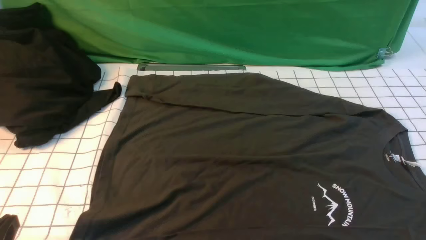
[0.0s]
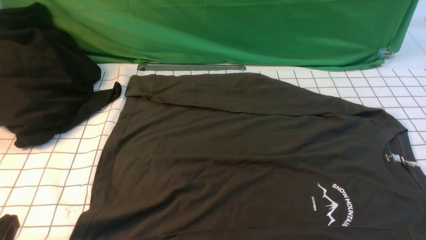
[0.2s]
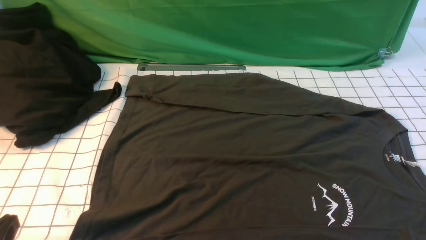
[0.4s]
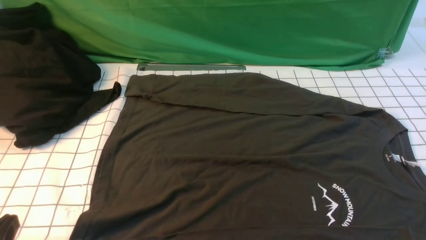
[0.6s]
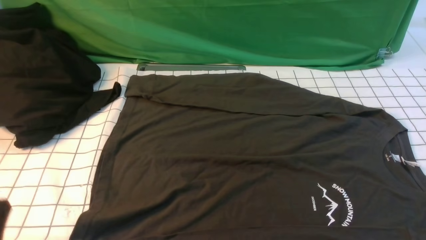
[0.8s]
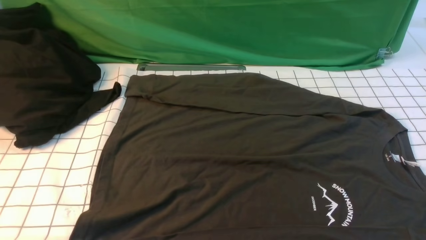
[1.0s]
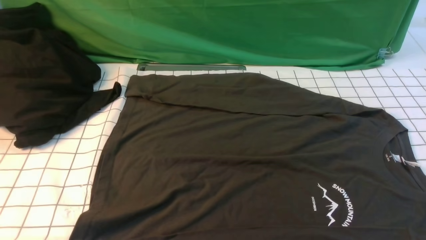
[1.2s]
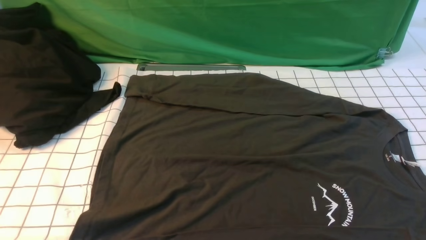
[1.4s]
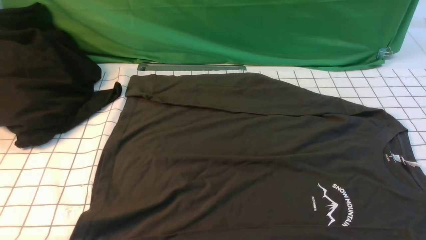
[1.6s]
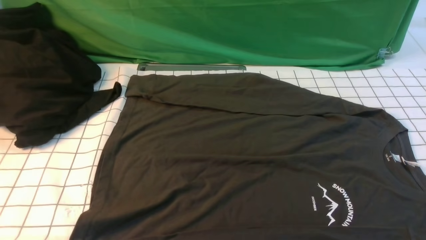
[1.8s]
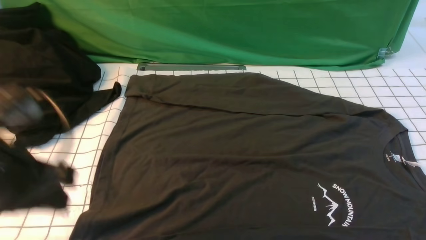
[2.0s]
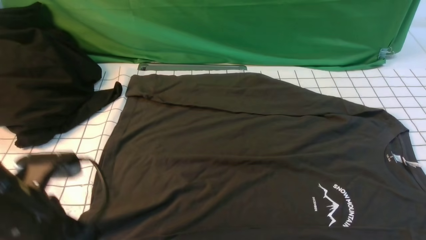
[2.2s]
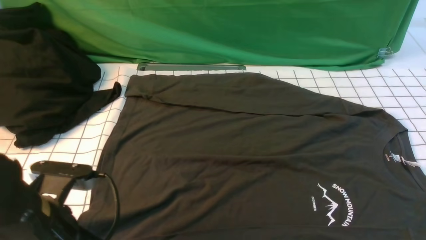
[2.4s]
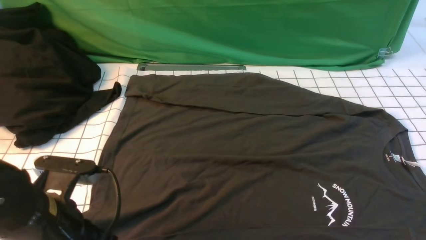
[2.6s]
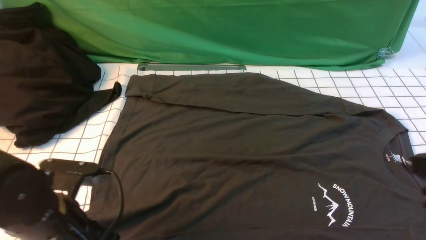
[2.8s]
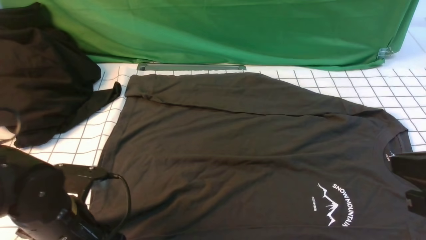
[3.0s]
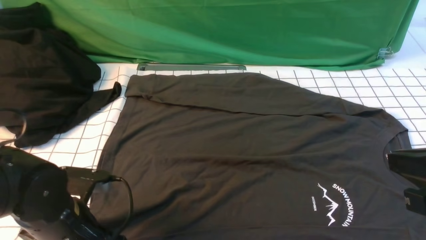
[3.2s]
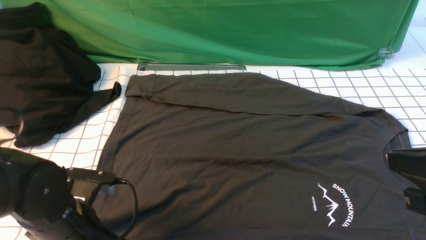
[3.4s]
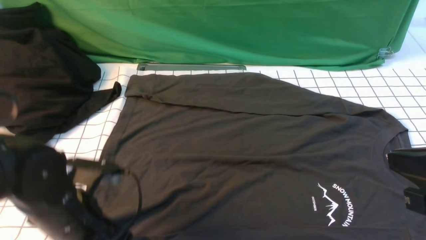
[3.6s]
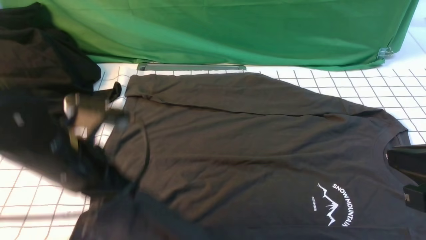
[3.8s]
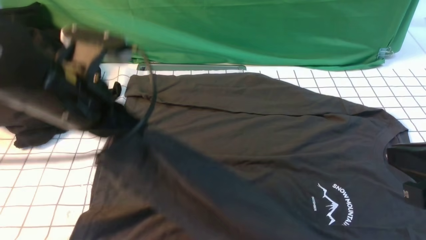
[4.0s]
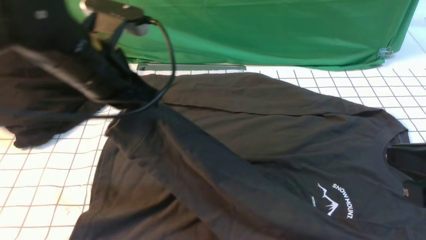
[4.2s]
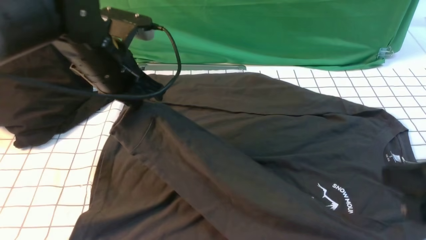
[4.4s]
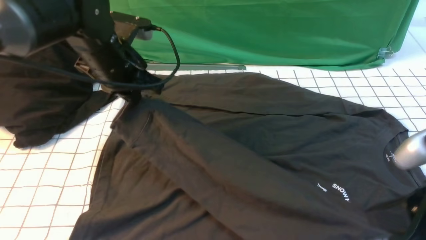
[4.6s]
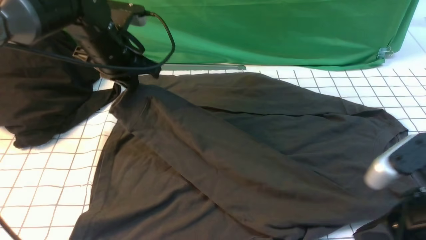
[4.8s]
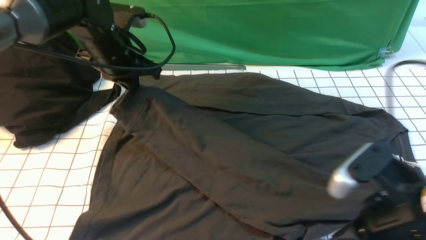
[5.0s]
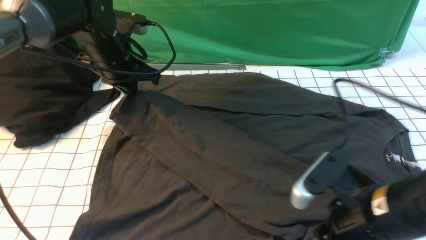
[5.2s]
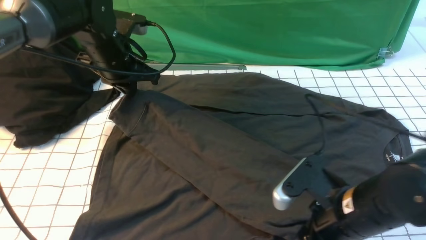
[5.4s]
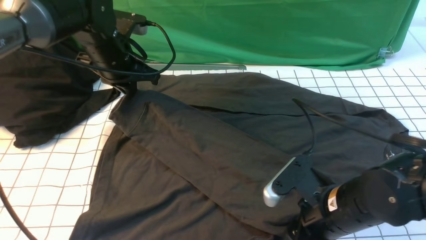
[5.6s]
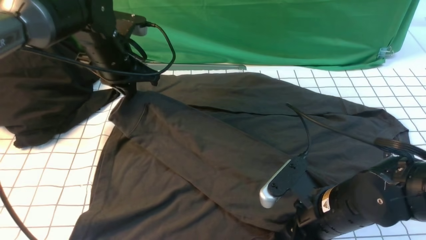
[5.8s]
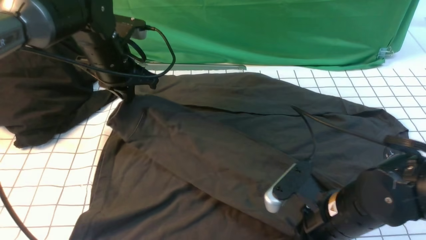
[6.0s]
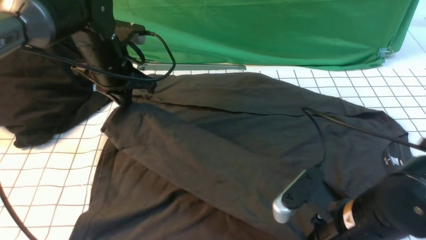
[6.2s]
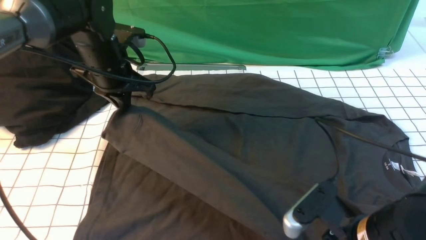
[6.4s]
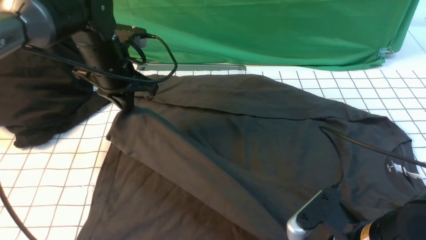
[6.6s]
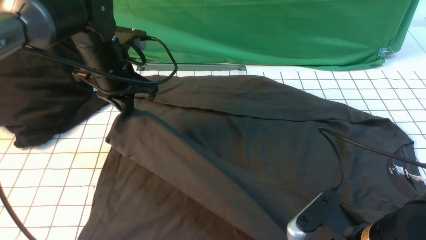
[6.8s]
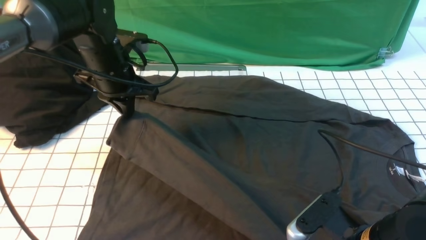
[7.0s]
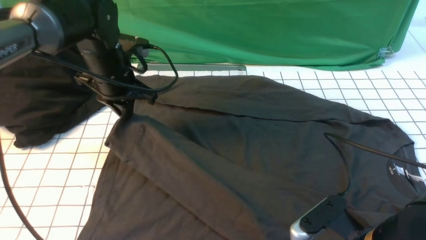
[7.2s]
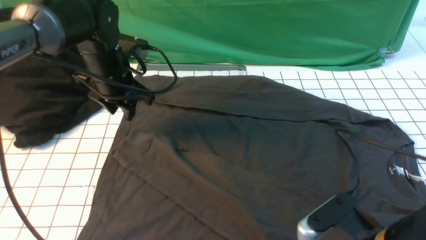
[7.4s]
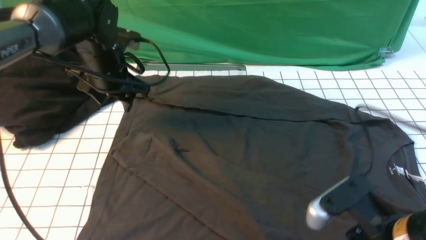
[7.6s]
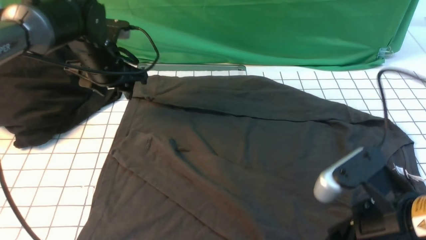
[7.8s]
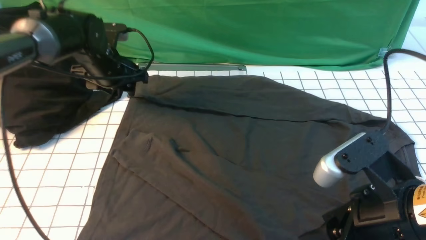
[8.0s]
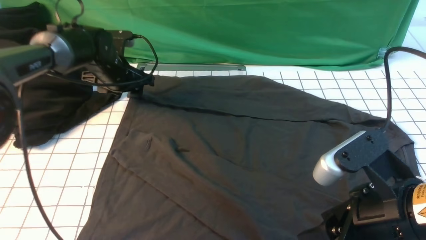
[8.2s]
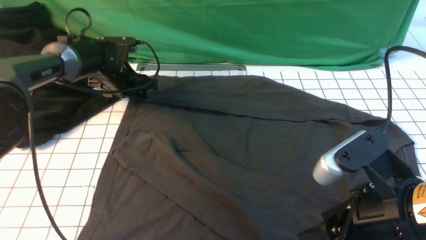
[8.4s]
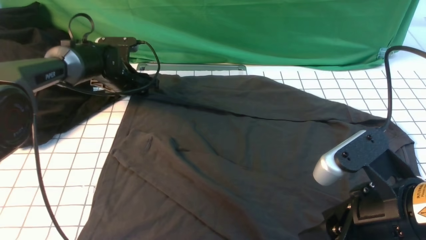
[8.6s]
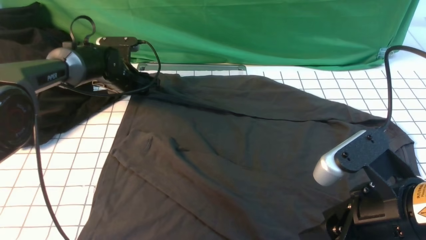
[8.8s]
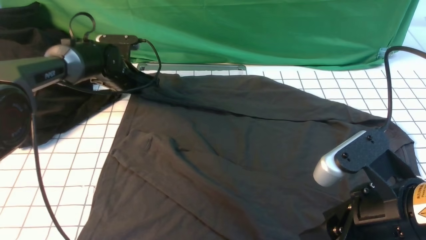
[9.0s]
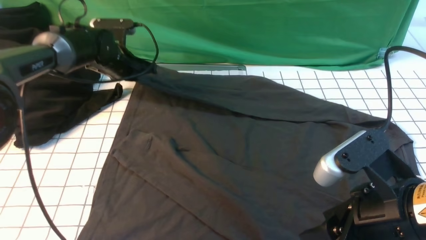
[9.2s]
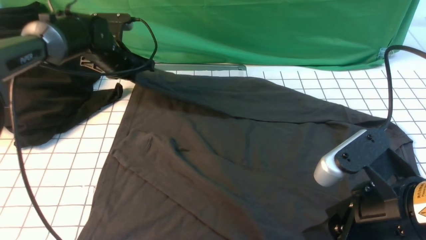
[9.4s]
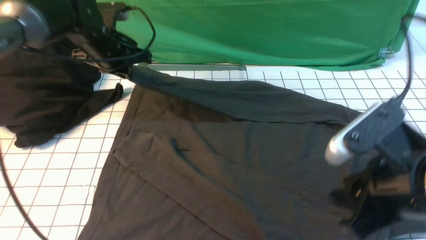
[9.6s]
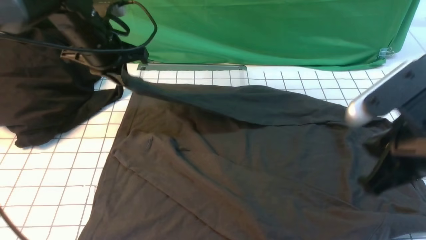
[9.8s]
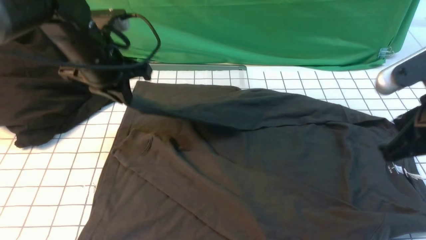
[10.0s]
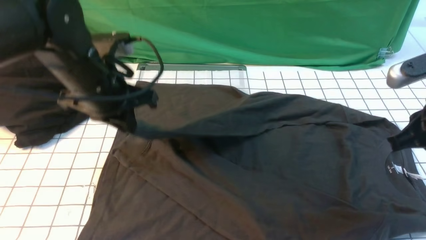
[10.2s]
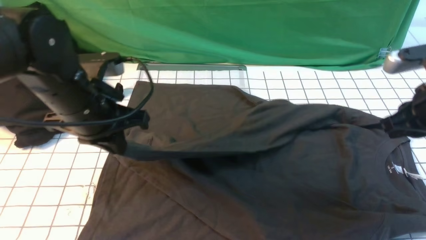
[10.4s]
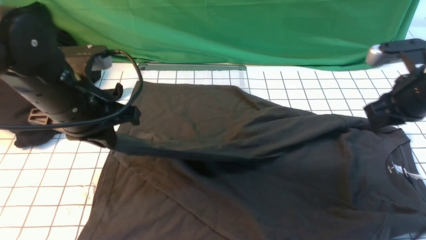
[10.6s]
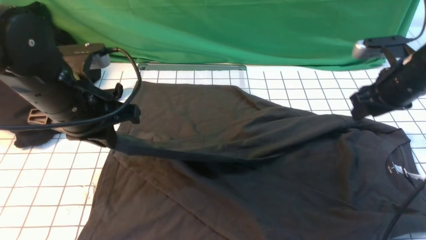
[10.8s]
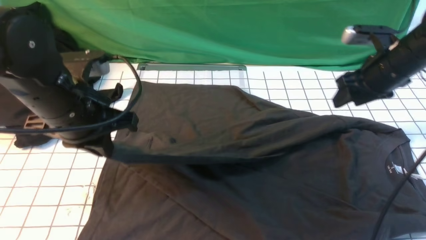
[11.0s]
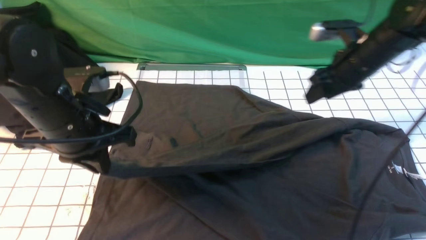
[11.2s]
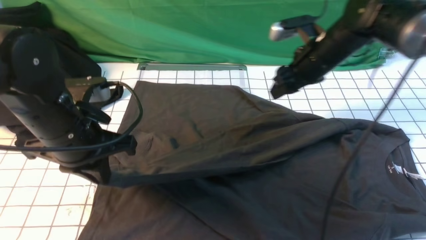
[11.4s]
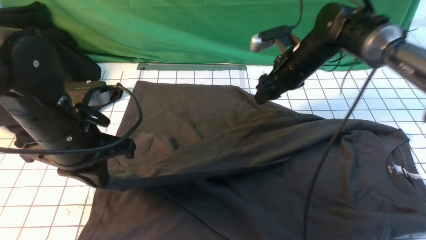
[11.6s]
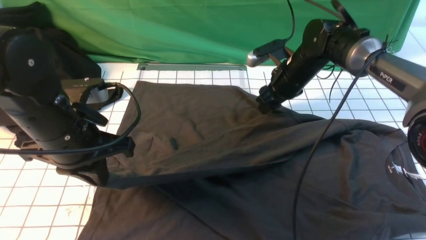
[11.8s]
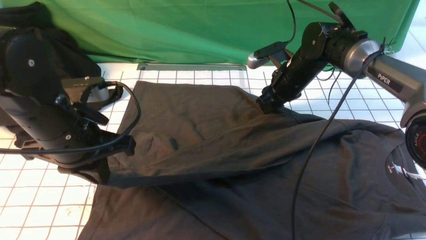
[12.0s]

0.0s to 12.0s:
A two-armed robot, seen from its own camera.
Step, 0.0s to 3.6s: use the left arm to clamp the cuff closest to it.
Step, 3.8s to 7.6s: use the left arm to drag and place the cuff at the centered position on the left edge of the fabric.
Step, 8.0s to 9.0s: use the left arm to clamp the cuff farthest from it.
1.6s to 3.0s: The right gripper moves upward, forward and to the left, roughly 15 cm, and closes up. Meanwhile the left gripper shifts about 25 cm downward and forward, and opens its fingers.
3.0s to 4.4s: The left gripper travels forward and upward by roughly 20 cm, and closes up.
4.4s to 6.0s: The right gripper heads downward, to the left and forward, covering roughly 20 cm, and opens and closes again, while the left gripper goes some 5 cm forward.
6.0s to 7.6s: The right gripper moves upward and backward, about 10 cm, and opens its fingers; the left gripper opens up.
7.6s to 9.0s: The left gripper heads forward and downward, covering approximately 10 cm, and closes.
9.0s to 10.4s: The left gripper moves backward and upward, some 25 cm. The right gripper shifts about 20 cm forward and to the right, and closes.
10.4s to 12.0s: The right gripper heads forward, to the left and downward, covering roughly 25 cm, and opens its fingers.

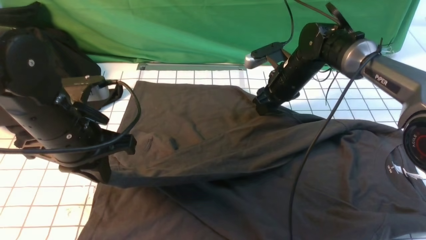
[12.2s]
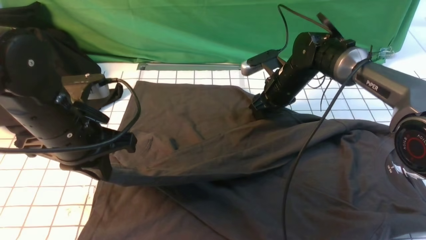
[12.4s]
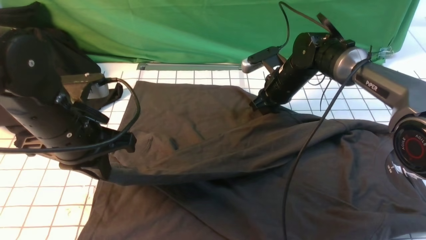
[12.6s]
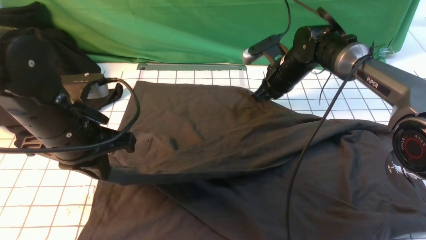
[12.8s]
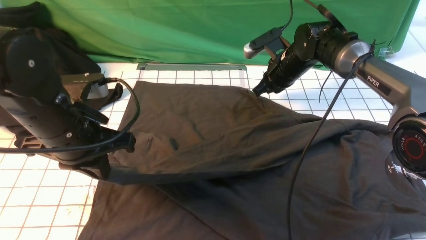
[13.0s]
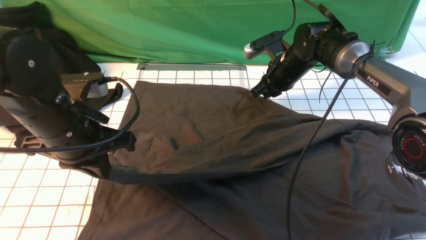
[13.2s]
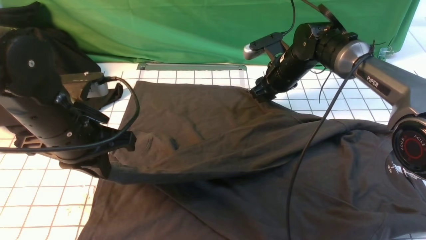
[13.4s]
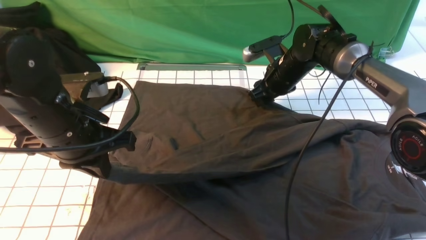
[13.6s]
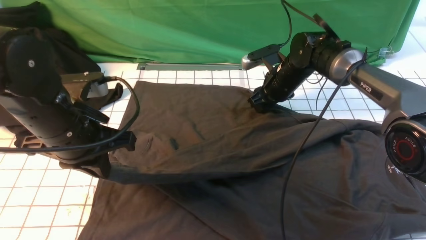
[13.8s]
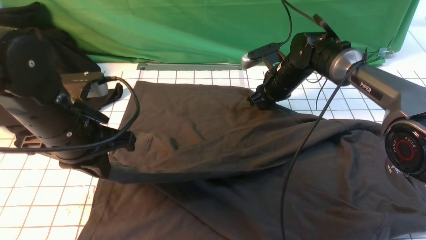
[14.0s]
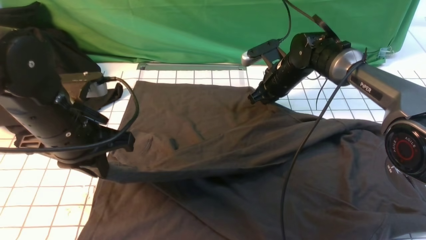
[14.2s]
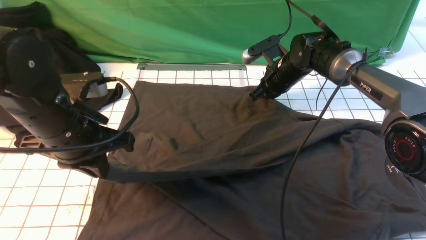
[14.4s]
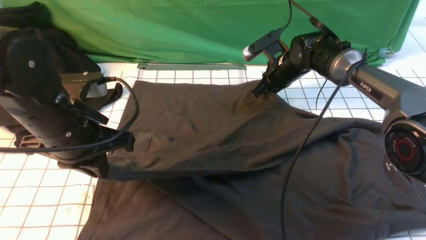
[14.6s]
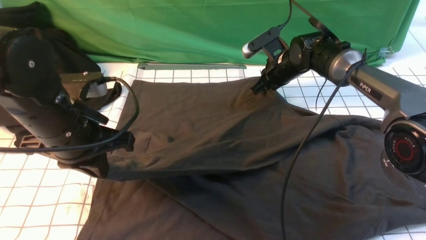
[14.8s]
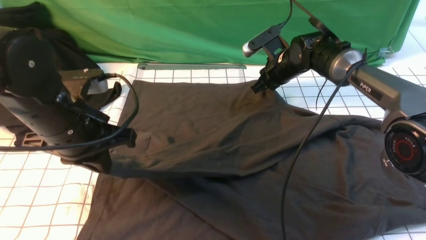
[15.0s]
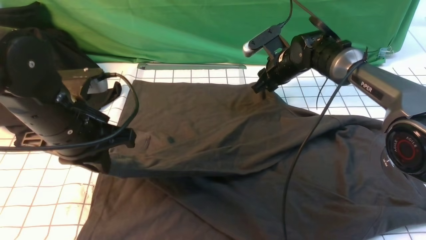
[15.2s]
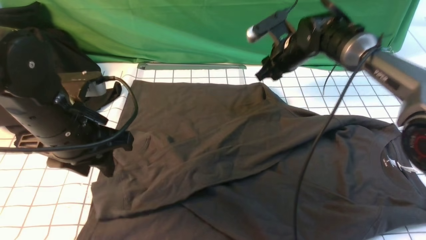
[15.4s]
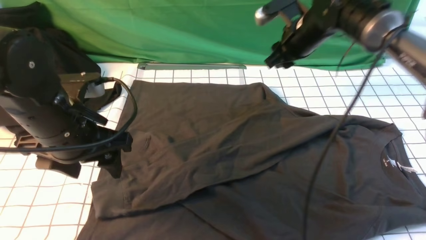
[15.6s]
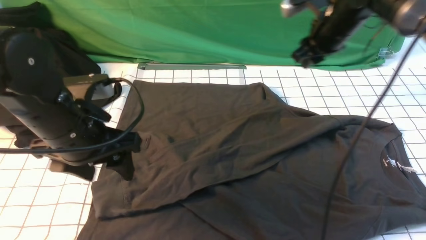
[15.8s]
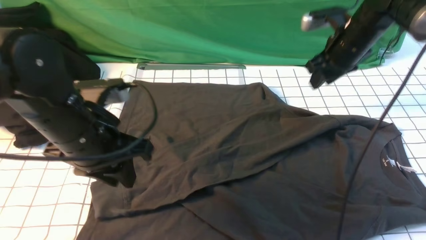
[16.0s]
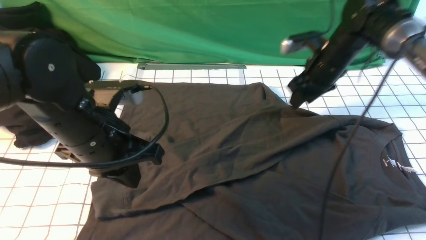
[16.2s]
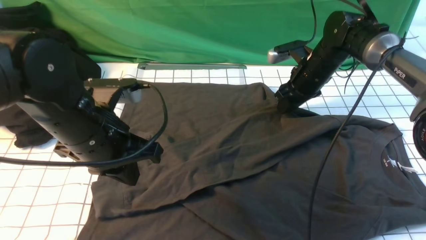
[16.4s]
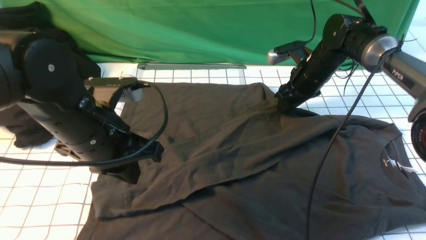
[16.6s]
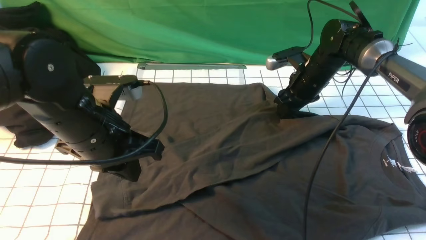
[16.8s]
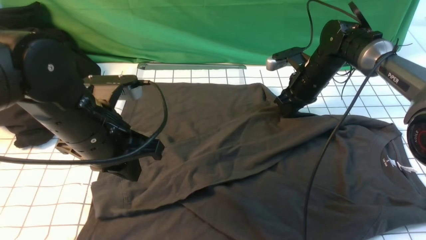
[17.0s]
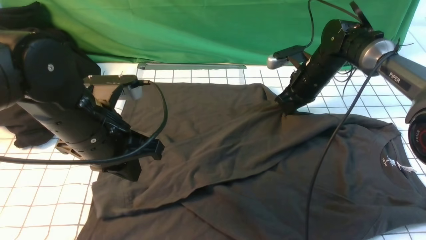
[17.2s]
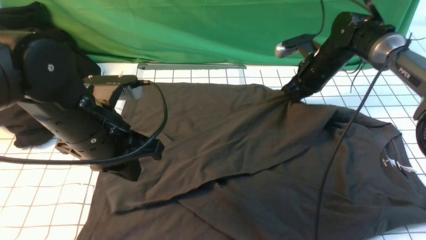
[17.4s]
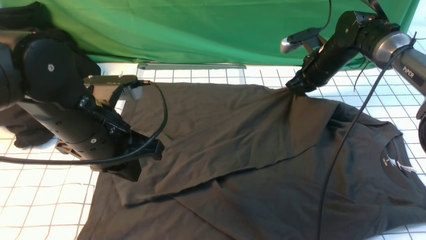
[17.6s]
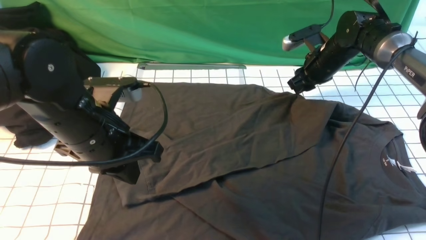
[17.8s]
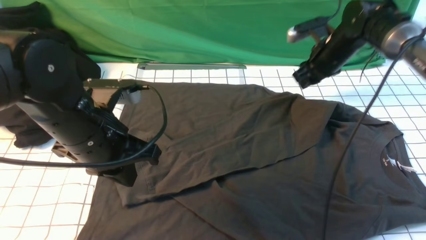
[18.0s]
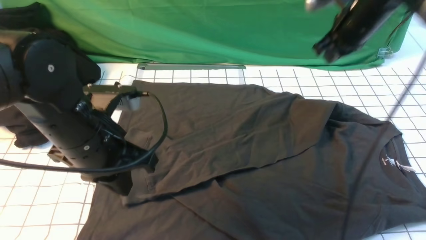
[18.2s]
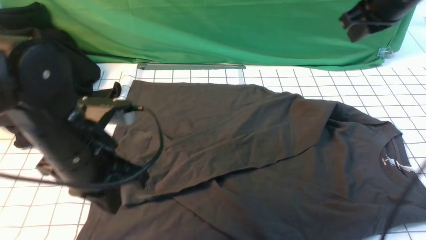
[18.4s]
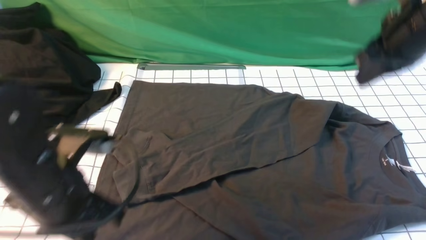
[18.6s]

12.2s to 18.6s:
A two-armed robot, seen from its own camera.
12.2s to 13.8s: The right gripper closes, then reopens.
13.8s to 15.4s: The left gripper opens; the right gripper shifts approximately 5 cm upward, and closes and opens again.
15.4s to 17.0s: The left gripper closes its fingers; the right gripper goes approximately 5 cm downward, and closes.
17.0s to 18.6s: The left gripper heads backward, covering approximately 5 cm. The right gripper shifts about 25 cm upward and backward.
